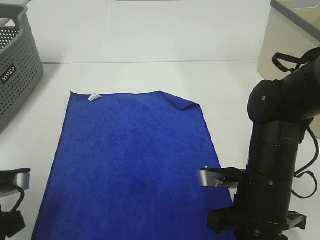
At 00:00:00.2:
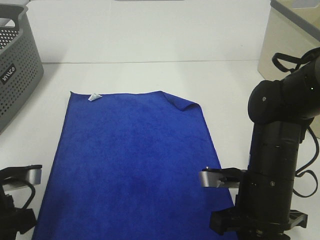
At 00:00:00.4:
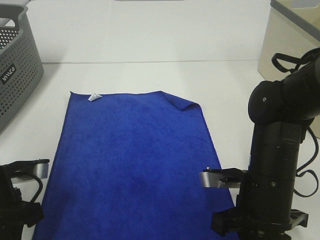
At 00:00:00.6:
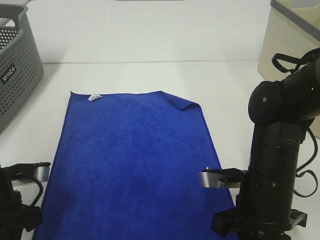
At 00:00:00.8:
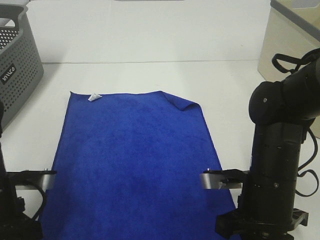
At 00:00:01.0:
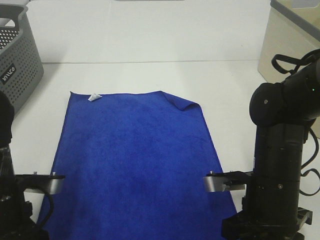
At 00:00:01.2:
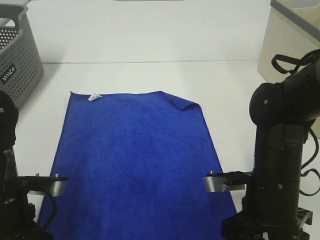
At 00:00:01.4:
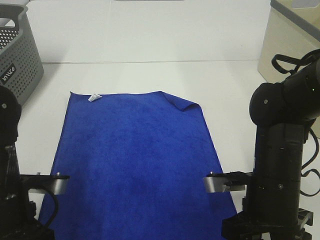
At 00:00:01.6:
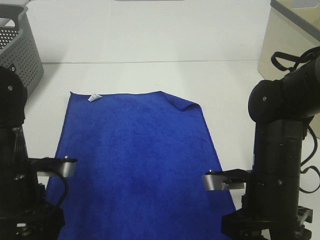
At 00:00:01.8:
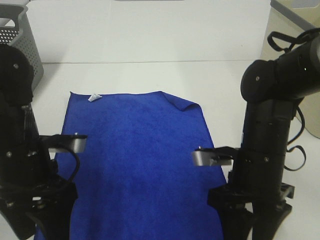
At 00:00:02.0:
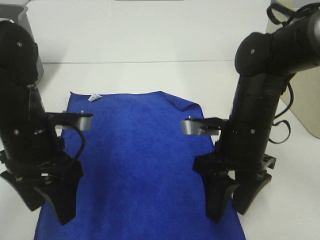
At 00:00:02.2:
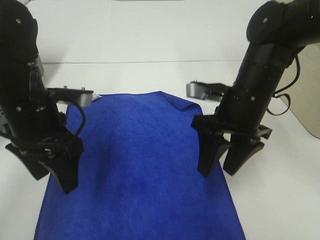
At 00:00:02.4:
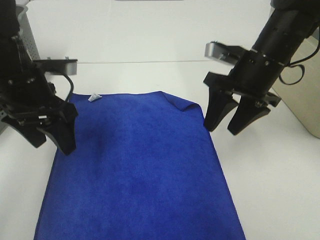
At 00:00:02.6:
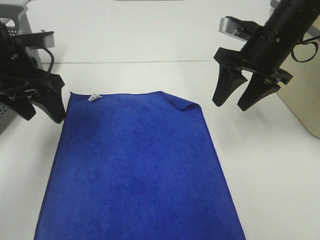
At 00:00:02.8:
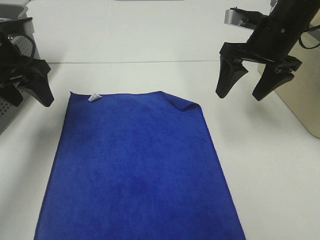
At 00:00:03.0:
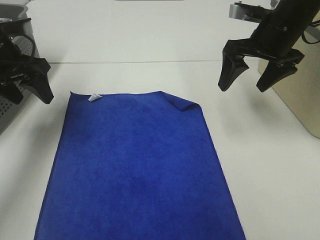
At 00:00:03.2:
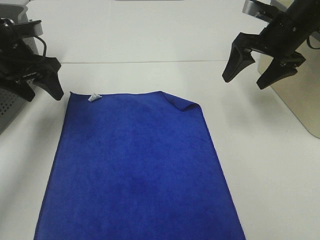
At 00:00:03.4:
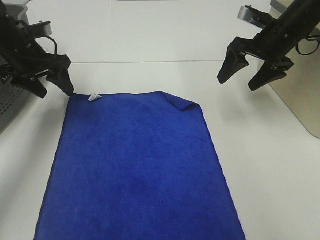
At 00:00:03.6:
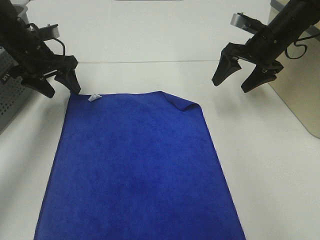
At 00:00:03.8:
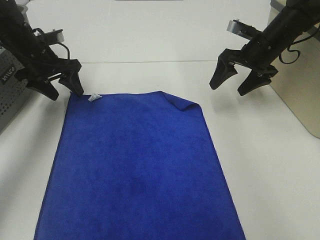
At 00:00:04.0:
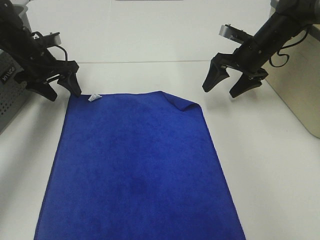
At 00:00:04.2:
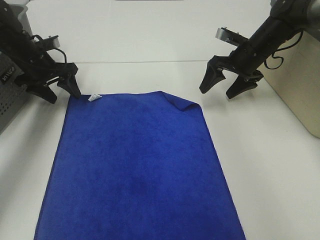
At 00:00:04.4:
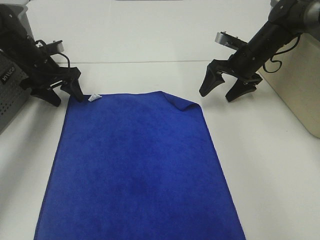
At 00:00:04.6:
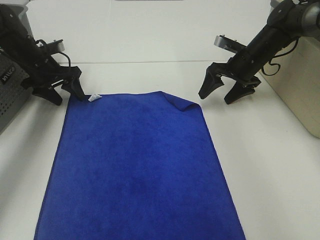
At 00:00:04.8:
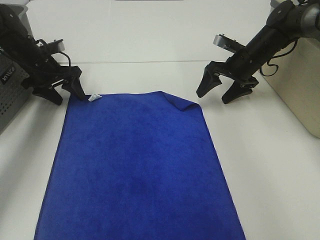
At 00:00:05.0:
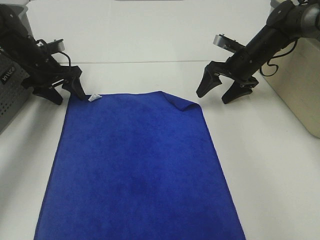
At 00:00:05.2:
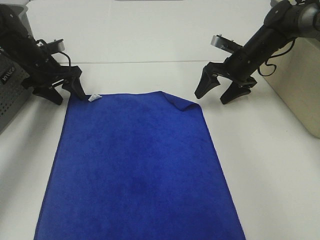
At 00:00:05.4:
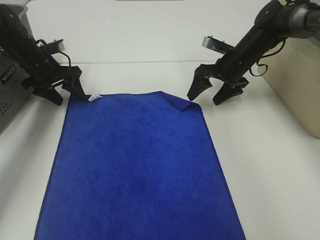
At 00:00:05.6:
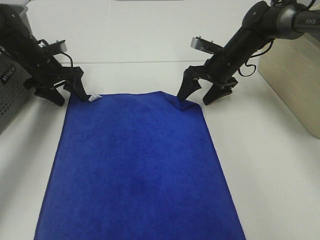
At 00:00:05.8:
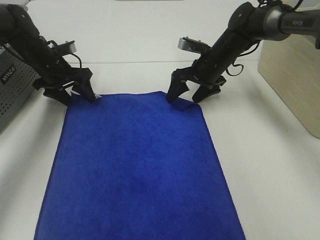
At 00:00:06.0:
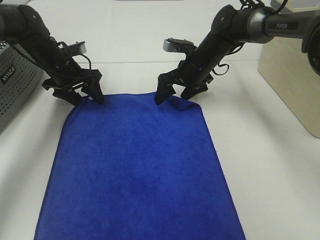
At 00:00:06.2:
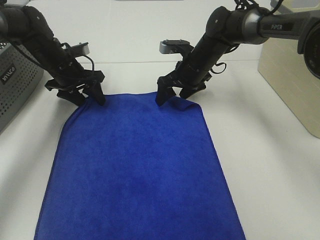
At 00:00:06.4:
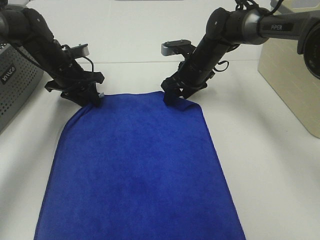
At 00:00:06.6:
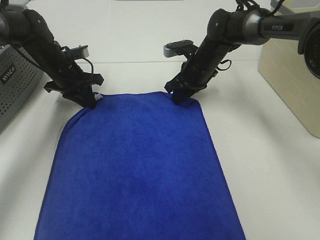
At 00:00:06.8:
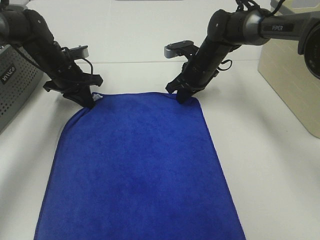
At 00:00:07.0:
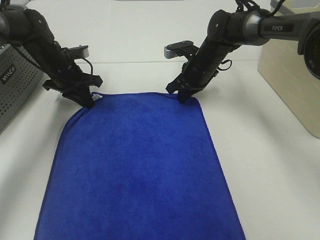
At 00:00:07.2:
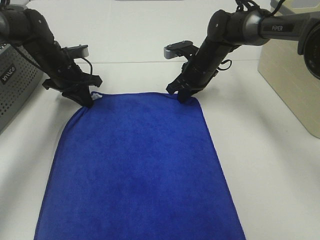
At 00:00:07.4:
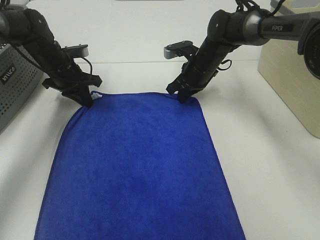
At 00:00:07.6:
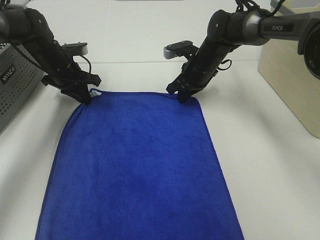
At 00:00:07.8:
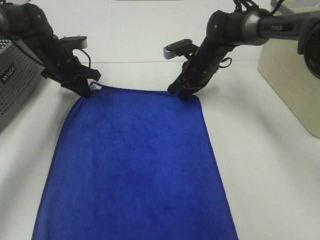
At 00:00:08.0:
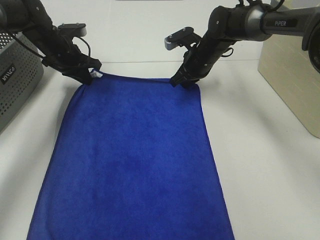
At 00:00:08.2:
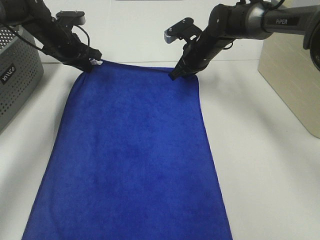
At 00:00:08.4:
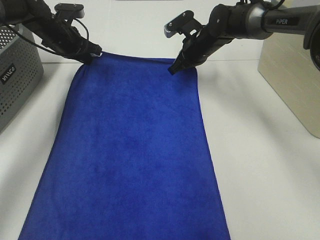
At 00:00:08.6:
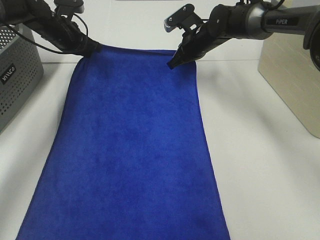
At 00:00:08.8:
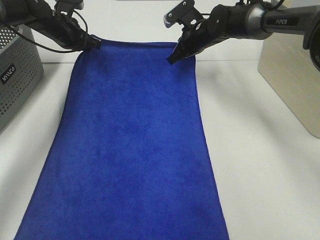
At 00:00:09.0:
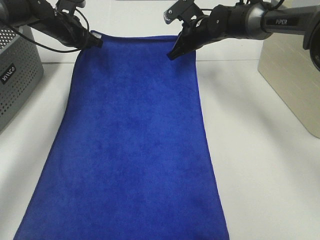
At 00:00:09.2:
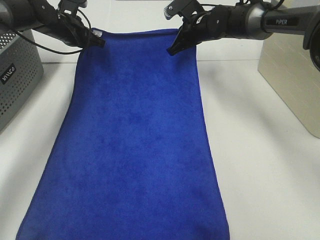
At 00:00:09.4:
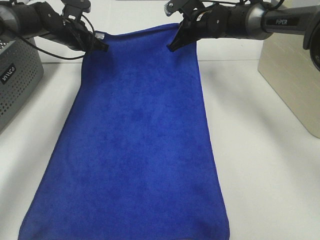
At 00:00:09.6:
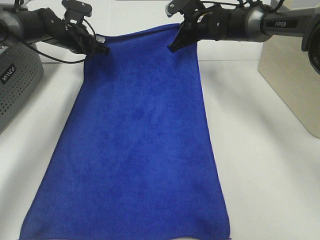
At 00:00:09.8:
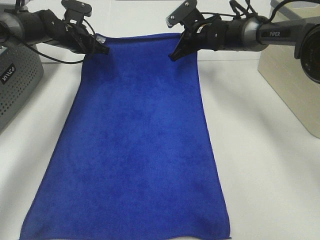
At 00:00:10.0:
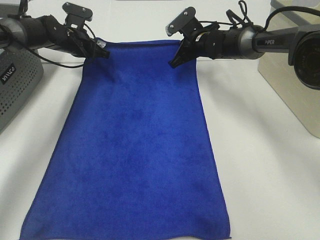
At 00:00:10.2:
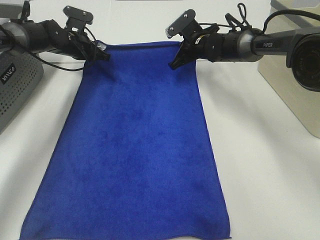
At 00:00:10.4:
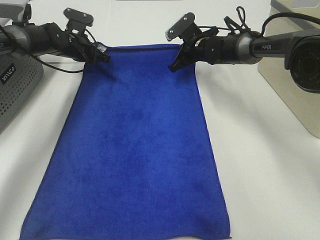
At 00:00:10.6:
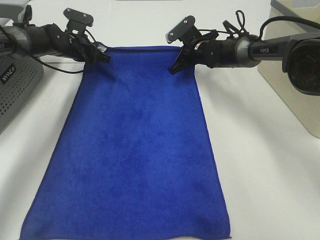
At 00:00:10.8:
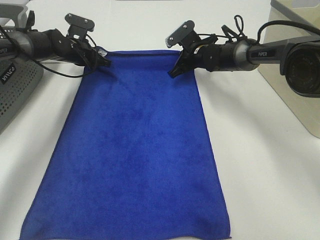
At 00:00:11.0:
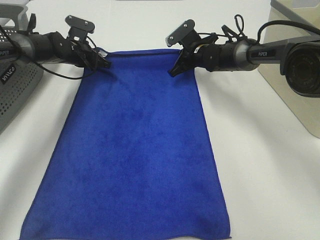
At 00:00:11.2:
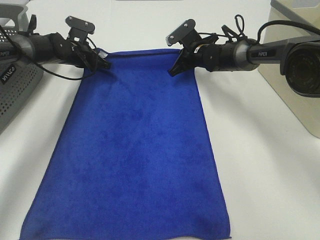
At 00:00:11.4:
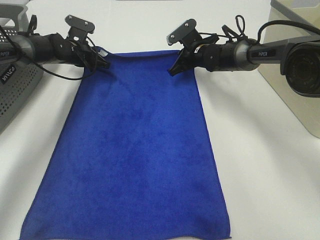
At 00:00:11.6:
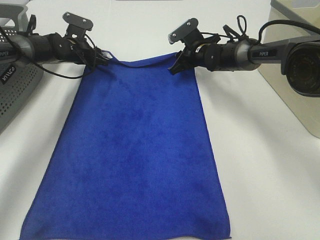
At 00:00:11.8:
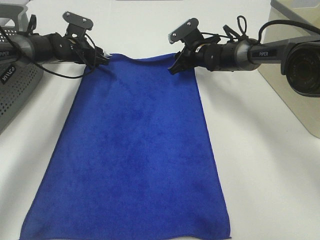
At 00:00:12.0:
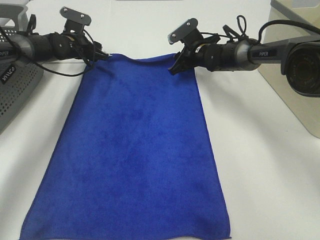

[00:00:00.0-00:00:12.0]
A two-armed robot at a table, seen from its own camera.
Task of the whole recording: Remove the towel and place it.
Step, 00:00:00.0 to 00:00:05.8: Left hand:adjust the blue towel.
Step, 00:00:00.0 to 00:00:09.8: Right hand:adjust the blue towel.
00:00:00.0 to 00:00:01.6: The right gripper opens its fingers. Meanwhile the left gripper travels to the right by some 5 cm, and opens its fingers.
00:00:01.6 to 00:00:03.0: The left gripper shifts roughly 20 cm forward, to the left and upward. The right gripper is displaced forward and upward by about 25 cm.
00:00:03.0 to 00:00:04.4: The left gripper shifts roughly 15 cm forward and downward, while the right gripper shifts some 15 cm downward and forward.
00:00:04.4 to 00:00:06.0: The left gripper travels to the right by roughly 5 cm; the right gripper goes some 10 cm to the left.
00:00:06.0 to 00:00:07.6: The right gripper closes its fingers. The left gripper closes its fingers.
00:00:07.6 to 00:00:09.0: The right gripper is displaced upward by roughly 5 cm, while the left gripper shifts about 10 cm forward and upward.
00:00:09.0 to 00:00:10.4: Both grippers move downward, approximately 5 cm.
00:00:10.4 to 00:00:12.0: The right gripper opens; the left gripper opens its fingers.

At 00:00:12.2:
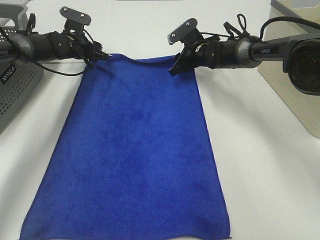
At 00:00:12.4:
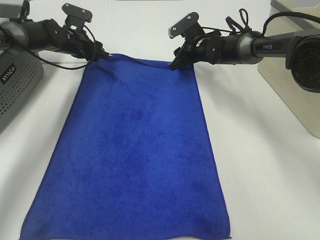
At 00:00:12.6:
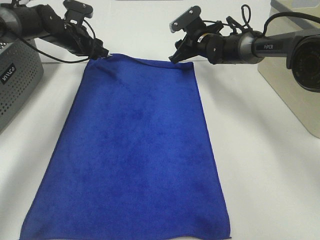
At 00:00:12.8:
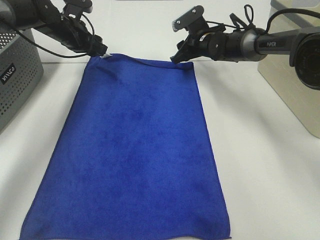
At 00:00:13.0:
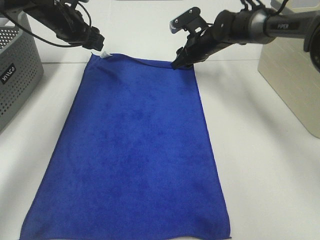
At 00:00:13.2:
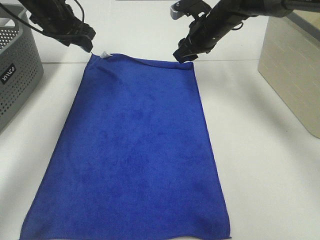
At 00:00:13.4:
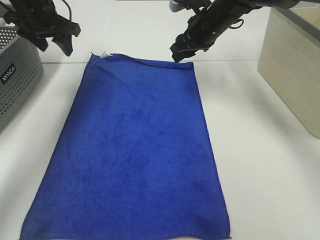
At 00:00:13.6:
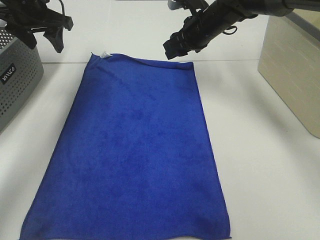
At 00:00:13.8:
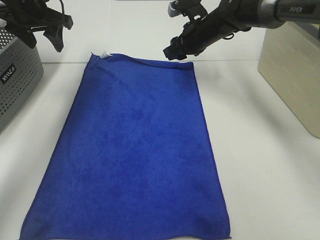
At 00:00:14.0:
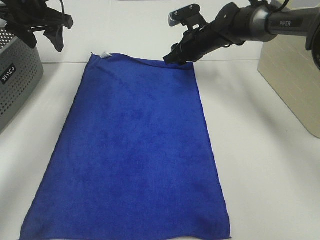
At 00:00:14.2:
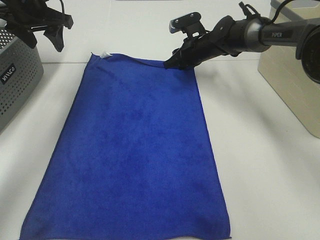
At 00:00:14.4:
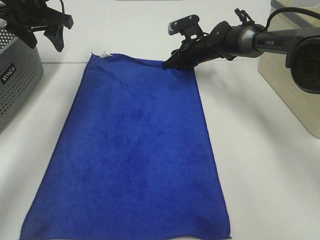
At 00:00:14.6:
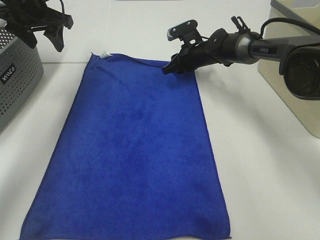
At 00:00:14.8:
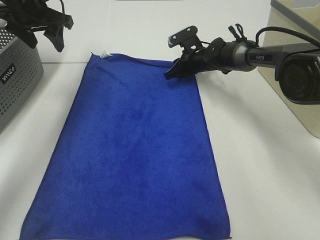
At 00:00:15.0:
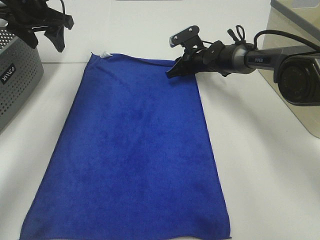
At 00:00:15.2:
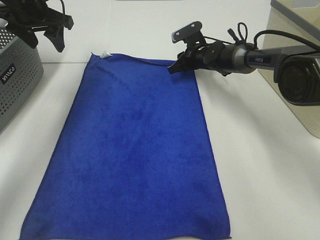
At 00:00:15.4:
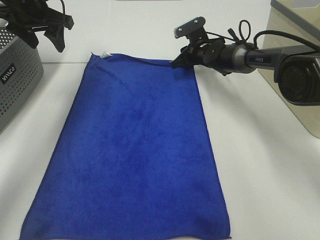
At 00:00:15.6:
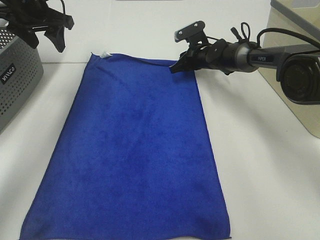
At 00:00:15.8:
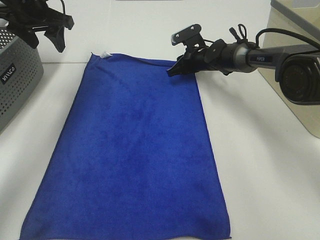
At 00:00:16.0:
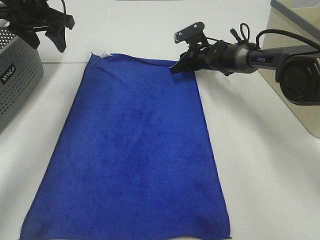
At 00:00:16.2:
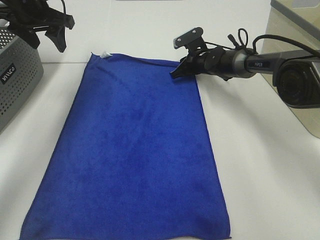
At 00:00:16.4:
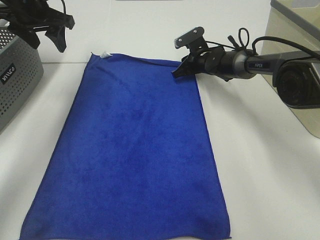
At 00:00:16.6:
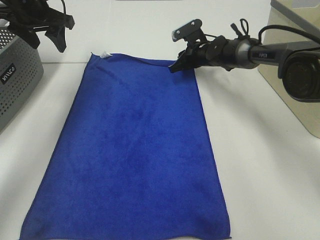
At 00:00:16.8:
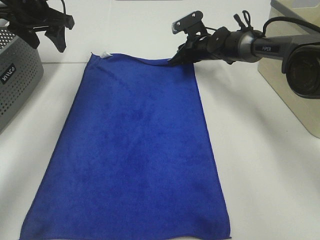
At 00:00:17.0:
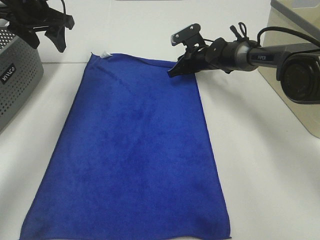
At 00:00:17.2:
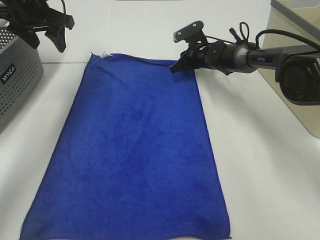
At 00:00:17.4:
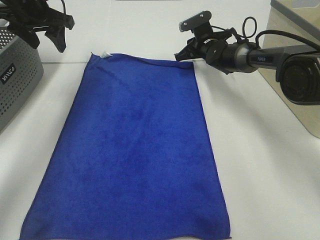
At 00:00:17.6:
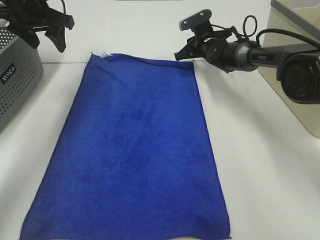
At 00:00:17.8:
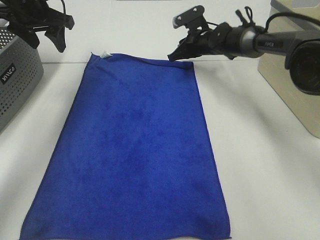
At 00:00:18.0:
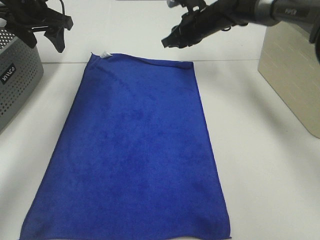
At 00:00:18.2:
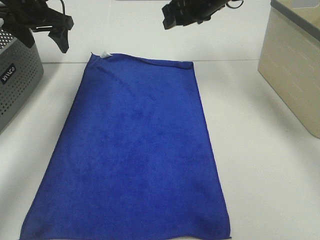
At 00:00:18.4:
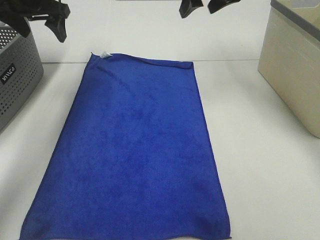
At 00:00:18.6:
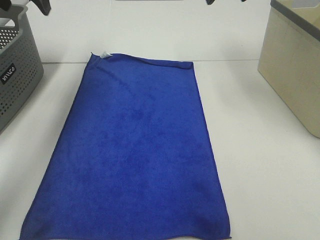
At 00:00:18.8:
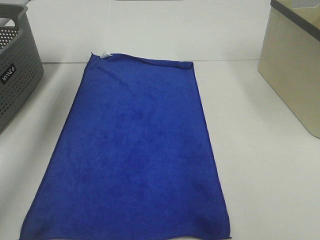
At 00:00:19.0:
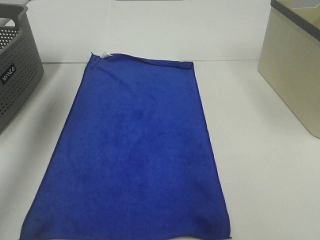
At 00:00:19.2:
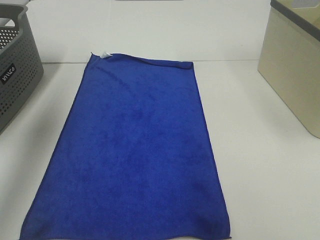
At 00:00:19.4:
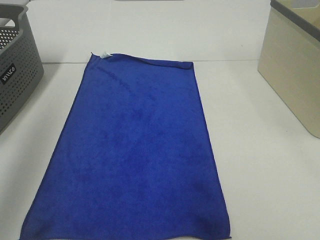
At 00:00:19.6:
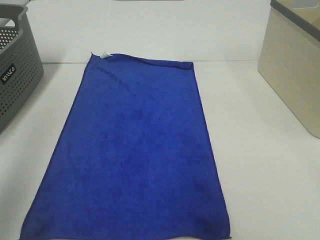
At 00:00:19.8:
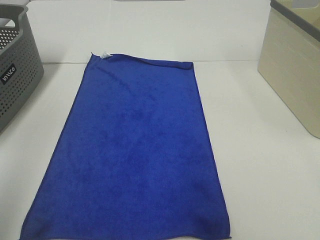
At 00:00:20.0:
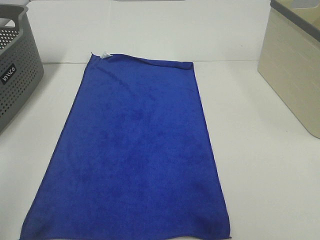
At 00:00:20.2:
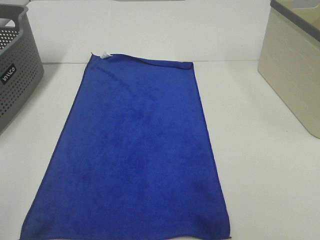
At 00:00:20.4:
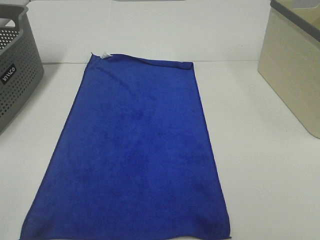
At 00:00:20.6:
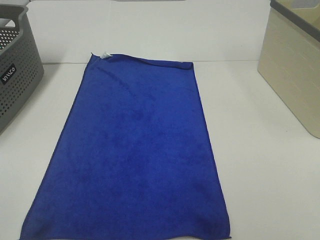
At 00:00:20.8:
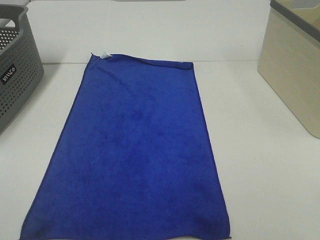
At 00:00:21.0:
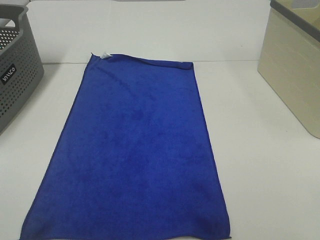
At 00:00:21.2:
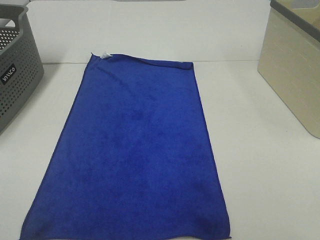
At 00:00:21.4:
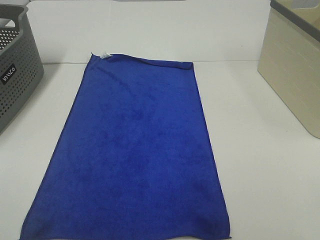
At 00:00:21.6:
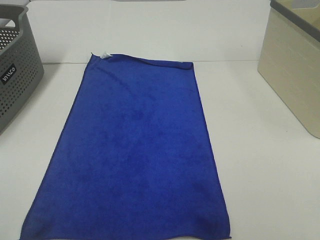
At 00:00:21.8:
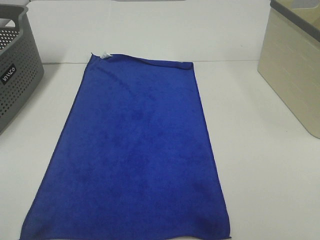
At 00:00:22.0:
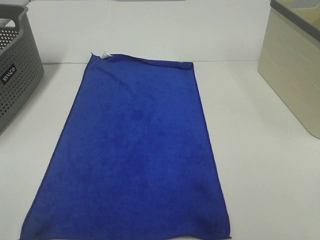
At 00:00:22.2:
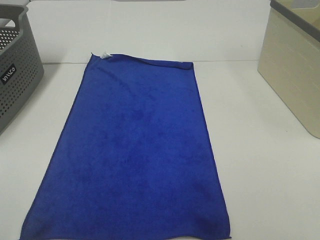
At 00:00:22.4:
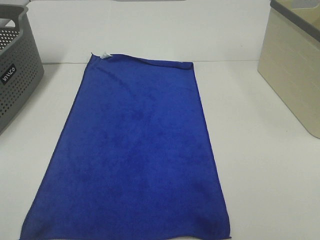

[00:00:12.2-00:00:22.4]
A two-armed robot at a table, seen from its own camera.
Task of the whole recording: Remove the towel and place it.
00:00:12.2 to 00:00:13.6: The left gripper goes approximately 20 cm upward and backward. Meanwhile the right gripper travels upward by some 10 cm.
00:00:13.6 to 00:00:15.2: The right gripper heads downward and forward, covering roughly 10 cm.
00:00:15.2 to 00:00:16.6: The grippers move only a little.
00:00:16.6 to 00:00:18.0: The right gripper heads upward, covering about 10 cm.
00:00:18.0 to 00:00:19.4: The right gripper travels backward, upward and to the right by some 40 cm, and opens its fingers; the left gripper heads backward and upward, covering some 30 cm.
00:00:19.4 to 00:00:21.0: The left gripper travels backward and downward by approximately 30 cm.
